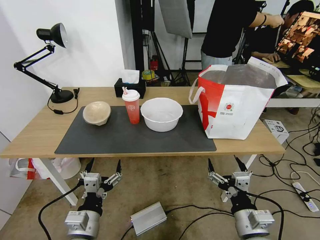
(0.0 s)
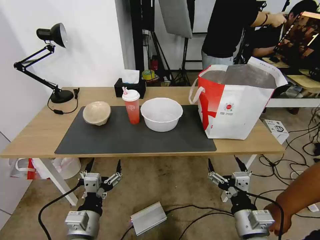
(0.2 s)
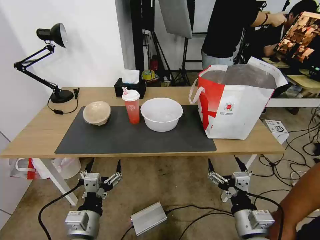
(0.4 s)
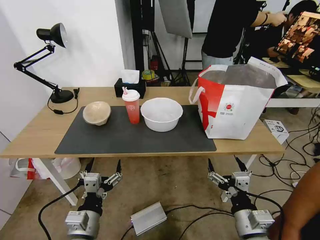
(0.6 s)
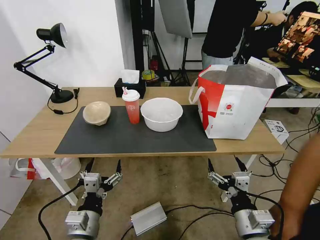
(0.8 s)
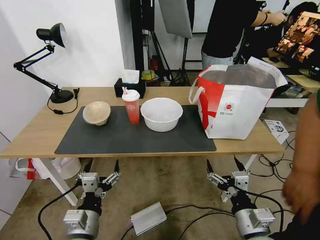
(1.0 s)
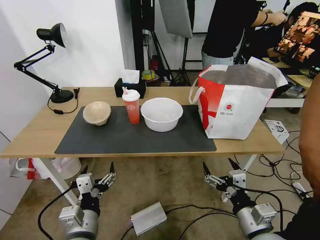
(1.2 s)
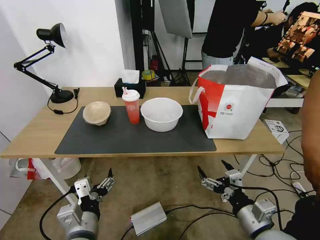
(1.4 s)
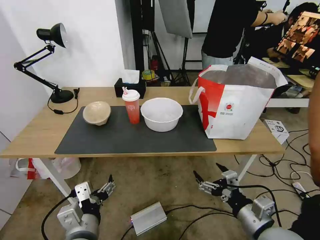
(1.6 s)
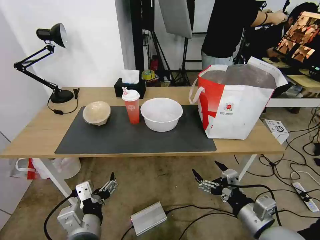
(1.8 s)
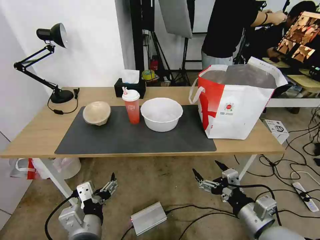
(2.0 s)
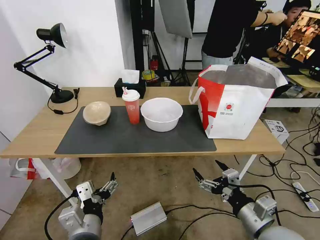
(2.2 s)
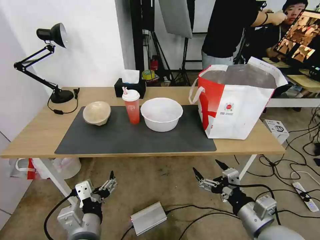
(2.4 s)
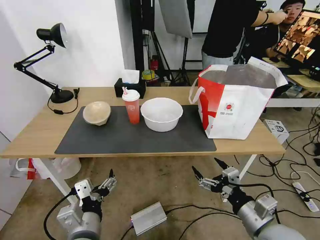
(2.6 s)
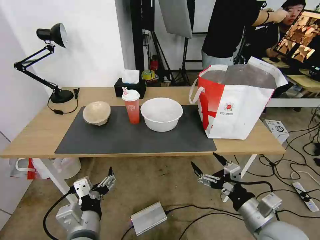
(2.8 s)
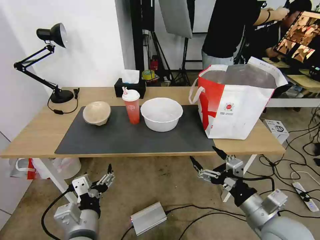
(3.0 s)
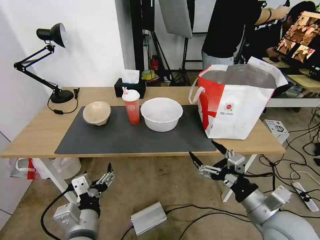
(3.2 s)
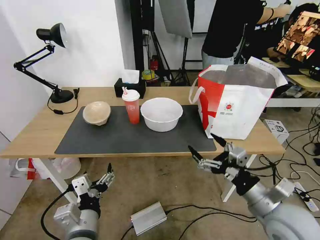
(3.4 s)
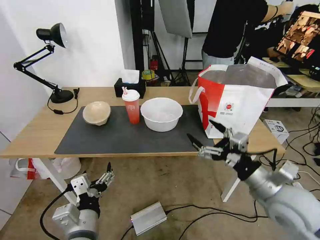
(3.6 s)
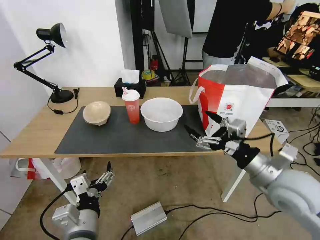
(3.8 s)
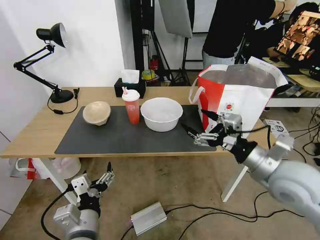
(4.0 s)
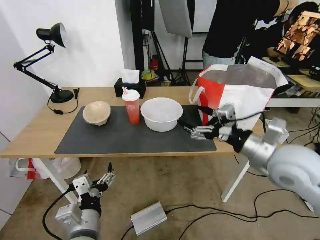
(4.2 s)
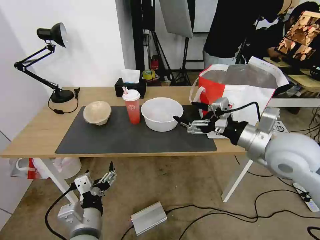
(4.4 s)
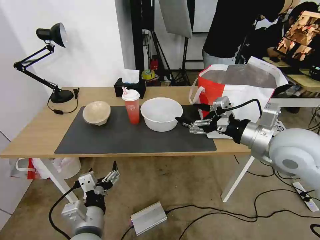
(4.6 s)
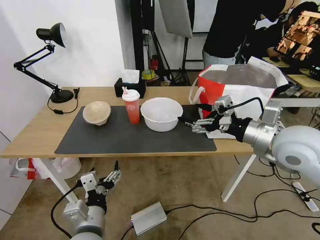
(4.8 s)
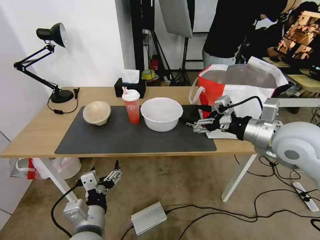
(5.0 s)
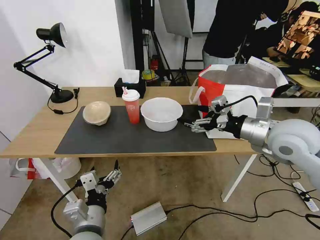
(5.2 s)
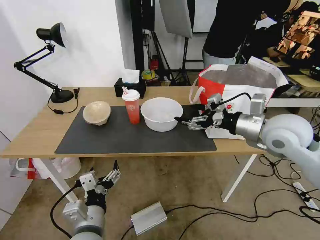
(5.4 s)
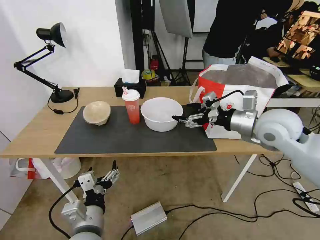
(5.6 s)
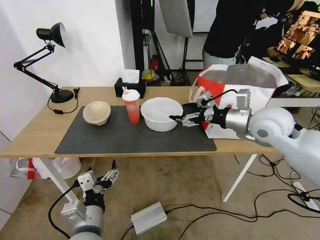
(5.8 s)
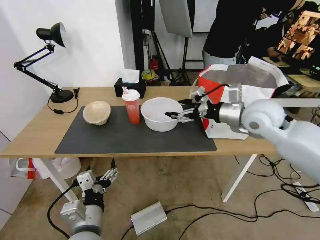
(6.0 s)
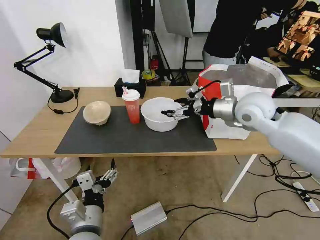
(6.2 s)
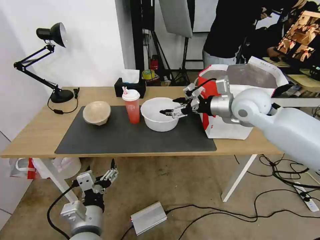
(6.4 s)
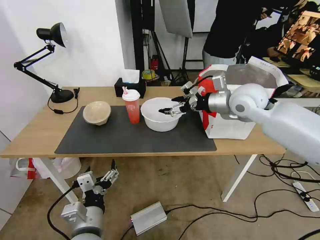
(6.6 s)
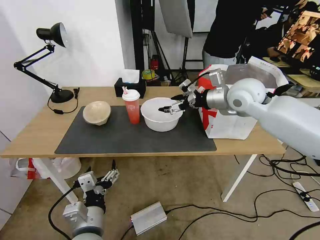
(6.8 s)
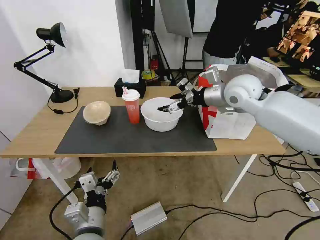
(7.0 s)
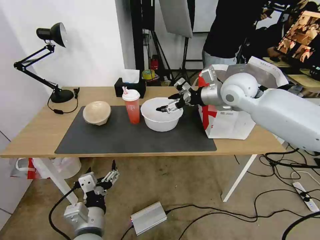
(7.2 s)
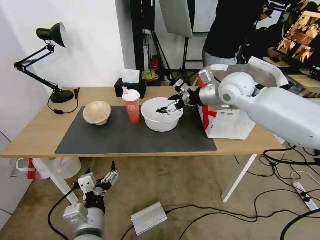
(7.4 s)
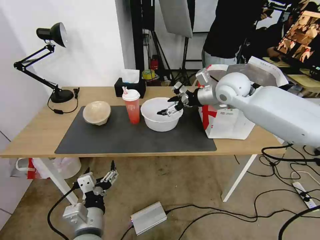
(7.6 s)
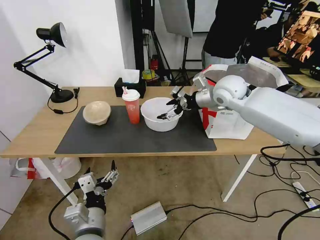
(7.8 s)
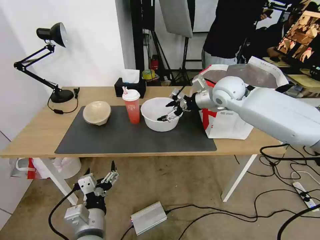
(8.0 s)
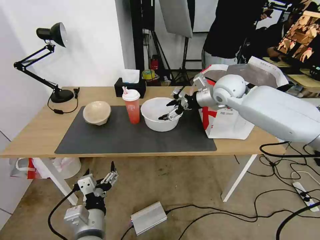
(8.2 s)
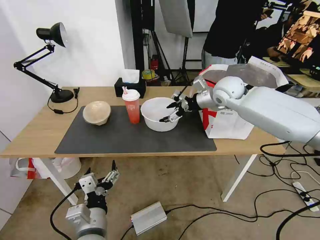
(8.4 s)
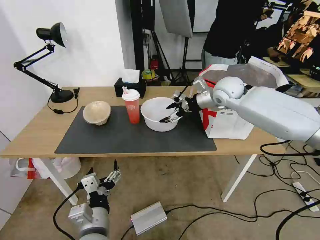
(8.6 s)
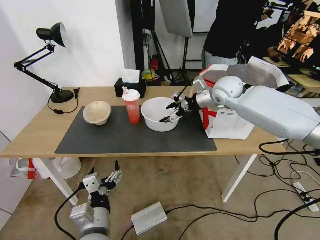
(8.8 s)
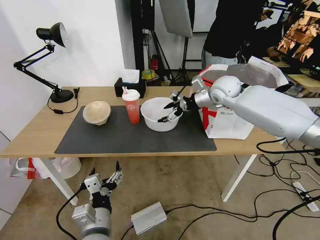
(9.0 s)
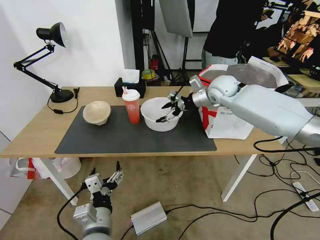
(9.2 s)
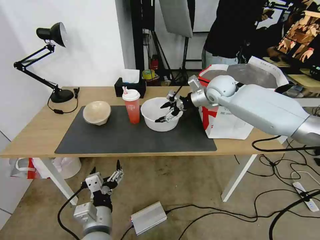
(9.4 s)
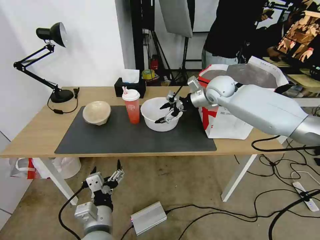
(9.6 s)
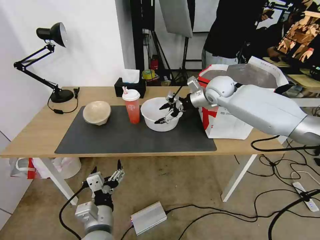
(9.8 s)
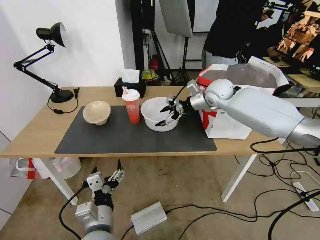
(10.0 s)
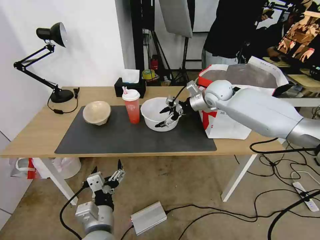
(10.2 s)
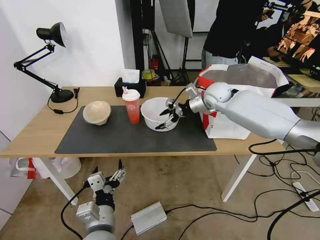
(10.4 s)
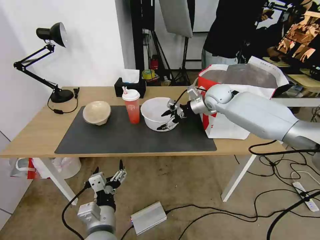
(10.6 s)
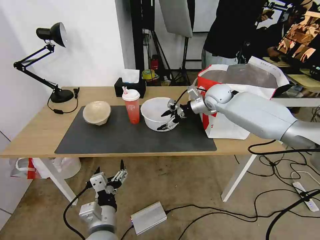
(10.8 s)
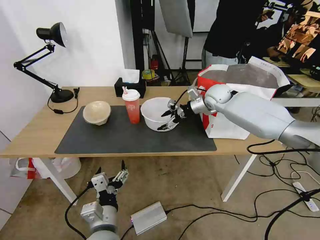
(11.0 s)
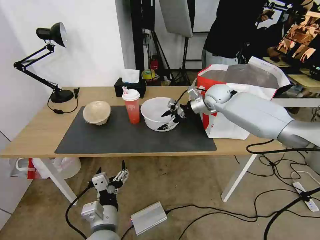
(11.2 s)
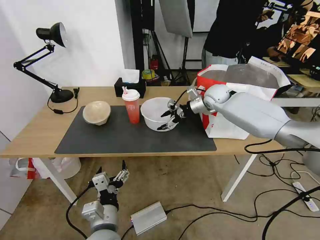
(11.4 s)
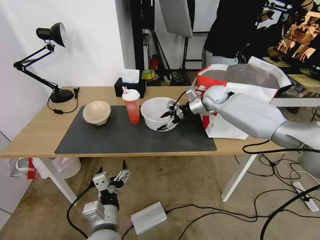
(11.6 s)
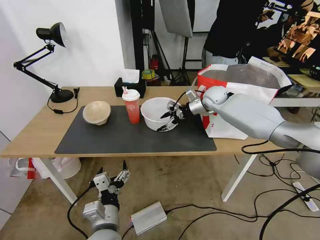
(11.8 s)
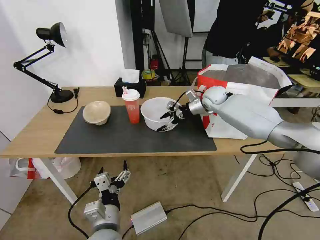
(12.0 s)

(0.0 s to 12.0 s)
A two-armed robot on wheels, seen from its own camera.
Task of the whole recording: Pick up the trash from the table and place it into the takeout bag.
1.6 s - 3.0 s: The grippers make only small movements.
3.0 s - 4.4 s: The right gripper goes approximately 20 cm upward and forward.
4.4 s - 6.0 s: The right gripper shifts about 10 cm forward.
6.0 s - 7.6 s: The right gripper is displaced forward by roughly 10 cm.
7.6 s - 9.0 s: The right gripper goes approximately 5 cm forward.
9.0 s - 10.4 s: The grippers make only small movements.
10.4 s - 12.0 s: There are only small adjustments of the grippers.

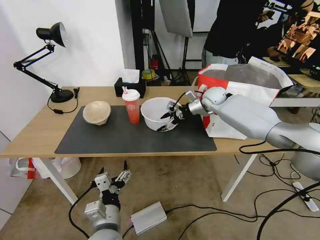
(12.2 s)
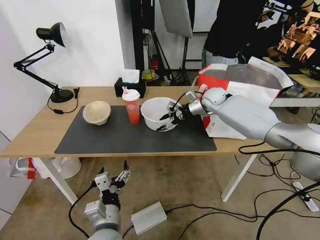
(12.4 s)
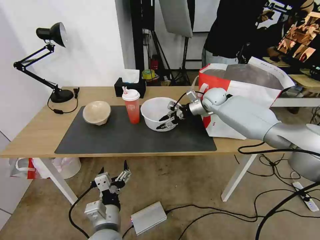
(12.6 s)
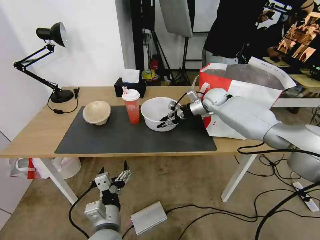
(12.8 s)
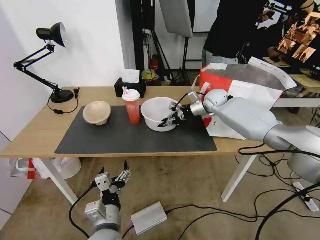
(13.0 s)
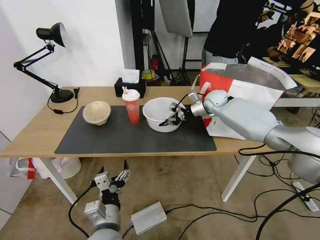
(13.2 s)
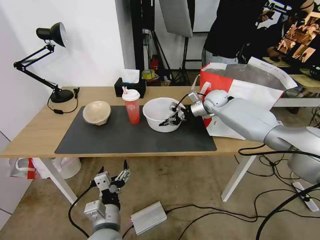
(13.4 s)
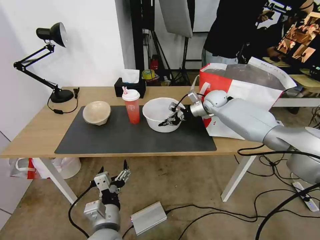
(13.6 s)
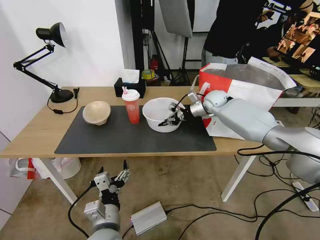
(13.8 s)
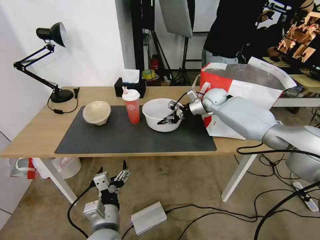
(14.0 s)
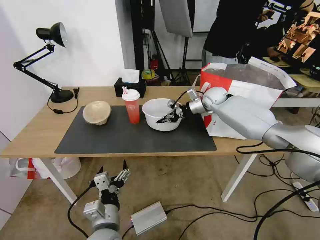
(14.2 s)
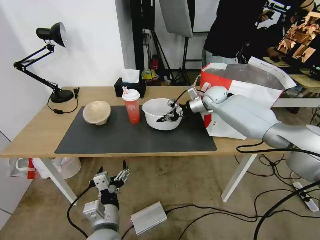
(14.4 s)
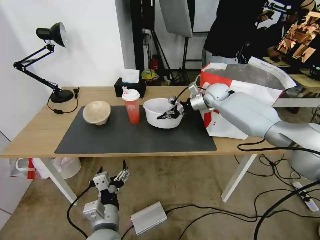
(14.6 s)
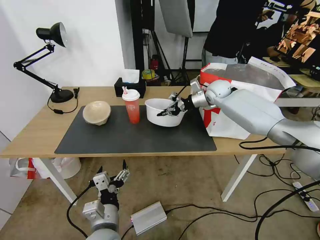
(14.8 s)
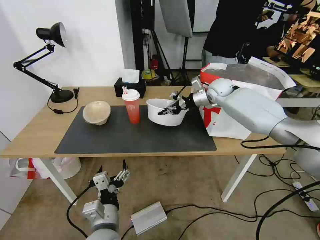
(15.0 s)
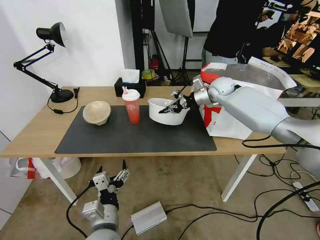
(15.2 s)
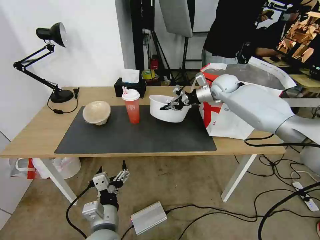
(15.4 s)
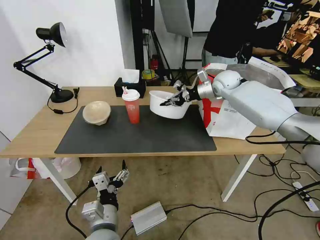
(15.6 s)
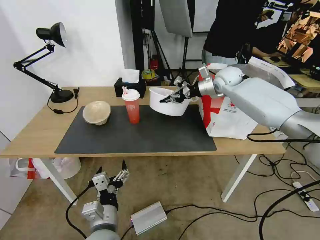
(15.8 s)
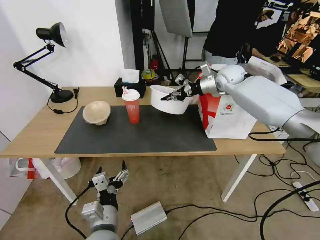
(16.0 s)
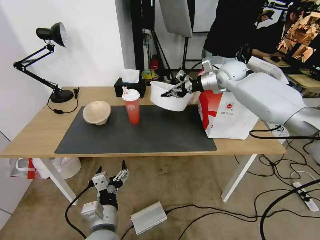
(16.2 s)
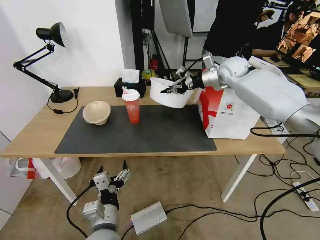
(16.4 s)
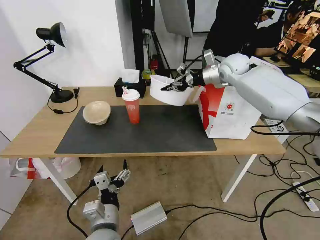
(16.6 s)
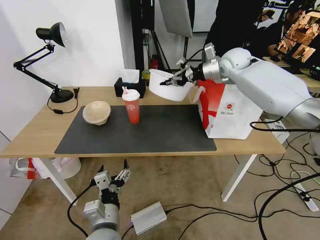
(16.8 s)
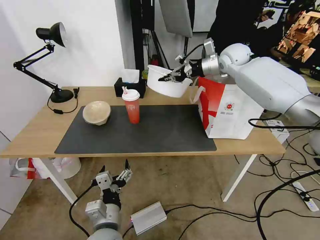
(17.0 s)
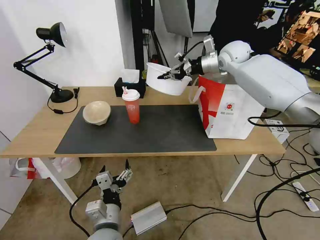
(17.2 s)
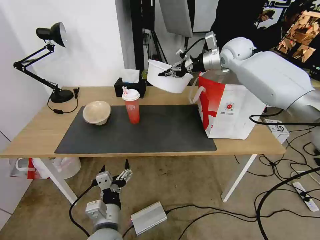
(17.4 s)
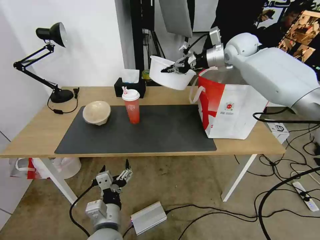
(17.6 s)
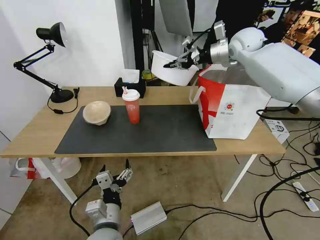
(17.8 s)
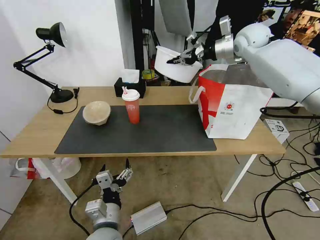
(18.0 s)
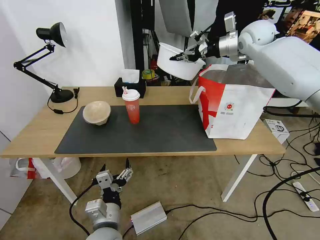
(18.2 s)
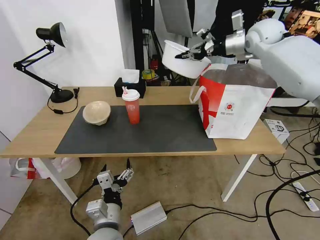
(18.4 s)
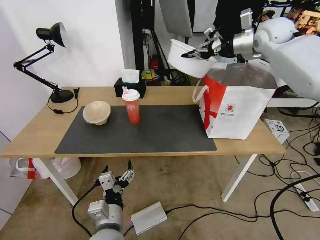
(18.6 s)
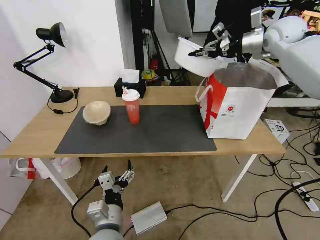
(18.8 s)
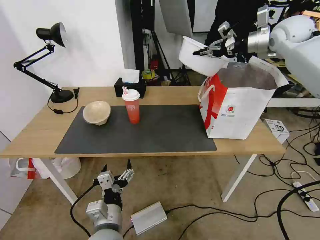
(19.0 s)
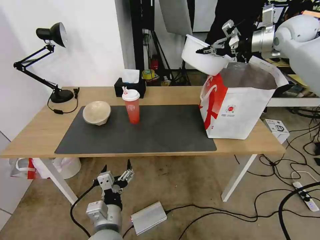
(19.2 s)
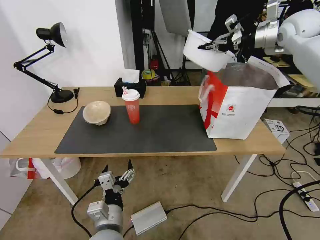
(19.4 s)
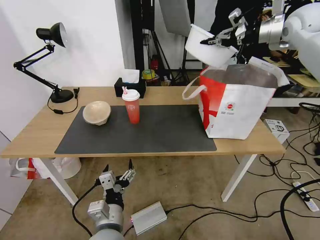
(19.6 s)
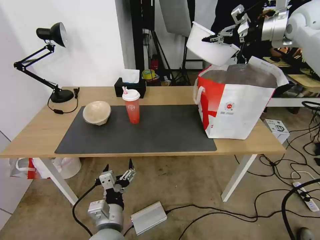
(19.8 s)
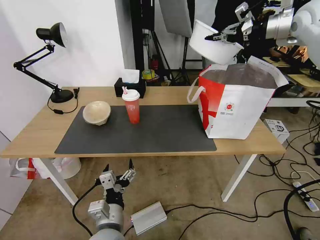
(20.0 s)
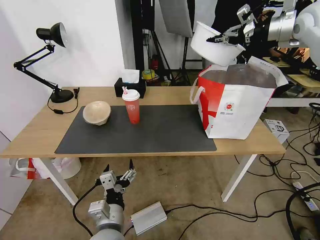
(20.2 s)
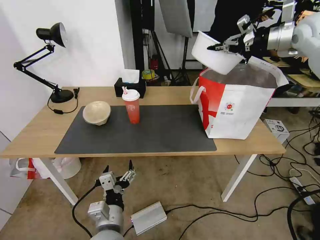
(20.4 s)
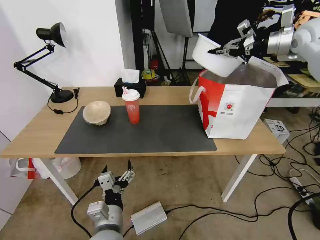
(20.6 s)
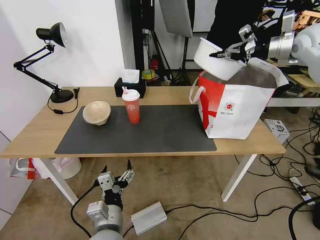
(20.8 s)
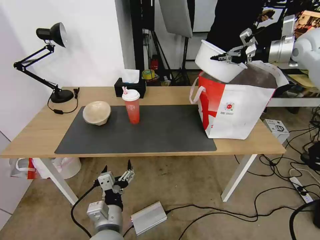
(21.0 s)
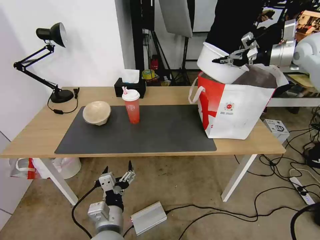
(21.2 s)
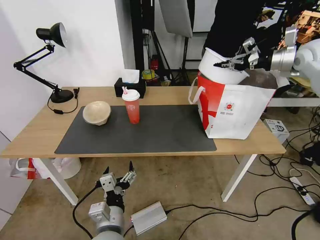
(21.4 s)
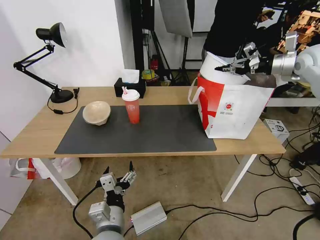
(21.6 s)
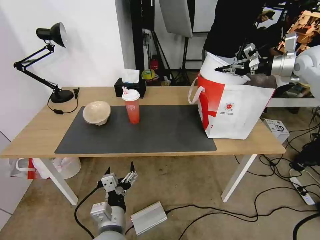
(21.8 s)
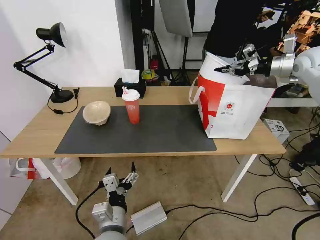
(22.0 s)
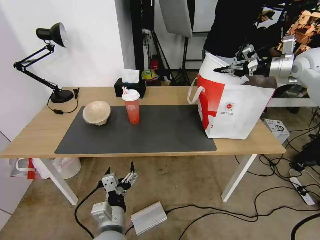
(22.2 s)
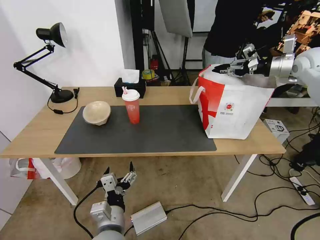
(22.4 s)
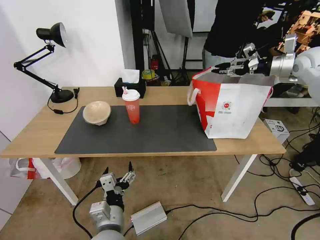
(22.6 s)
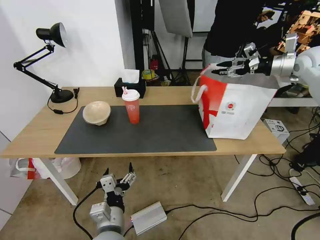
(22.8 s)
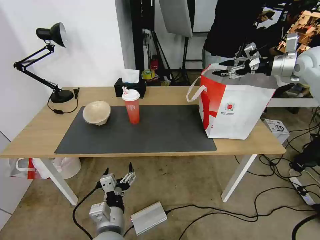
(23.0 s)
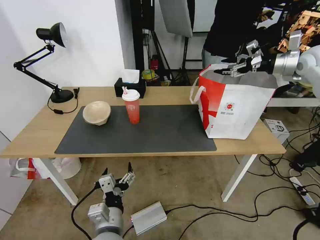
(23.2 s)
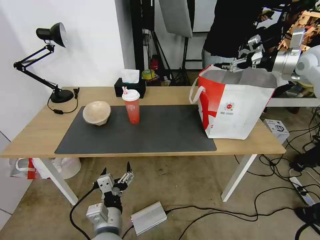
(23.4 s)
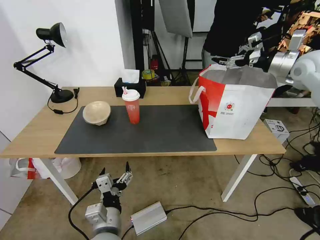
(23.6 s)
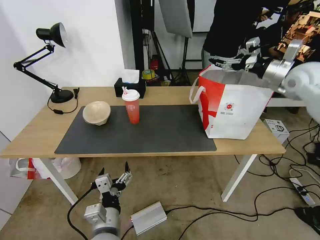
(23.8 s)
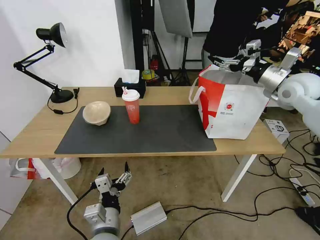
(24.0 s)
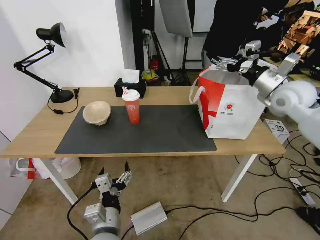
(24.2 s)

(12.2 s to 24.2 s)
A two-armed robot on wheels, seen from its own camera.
Task of the whole recording: Pick up the trash from the table and place it into the takeout bag.
12.2 s - 13.8 s: The right gripper closes up.
13.8 s - 15.2 s: The right gripper is displaced upward by approximately 5 cm.
15.2 s - 16.6 s: The right gripper goes roughly 10 cm upward.
16.6 s - 18.2 s: The right gripper heads upward, covering roughly 10 cm.
18.2 s - 19.8 s: The right gripper travels to the right and upward by some 10 cm.
19.8 s - 21.2 s: The right gripper shifts some 5 cm downward.
21.2 s - 22.6 s: The right gripper opens.
22.6 s - 24.2 s: The right gripper travels backward, to the left and downward by roughly 15 cm, and opens its fingers.
